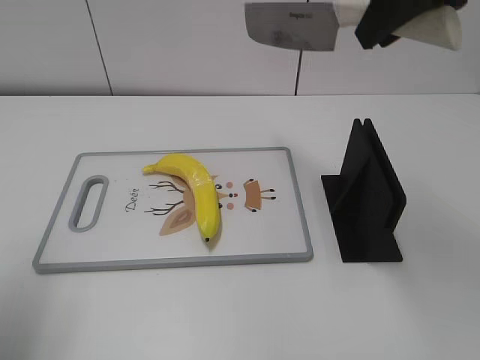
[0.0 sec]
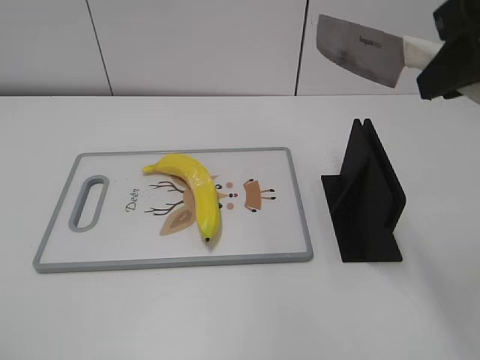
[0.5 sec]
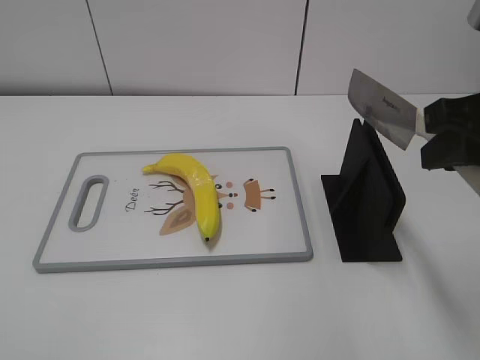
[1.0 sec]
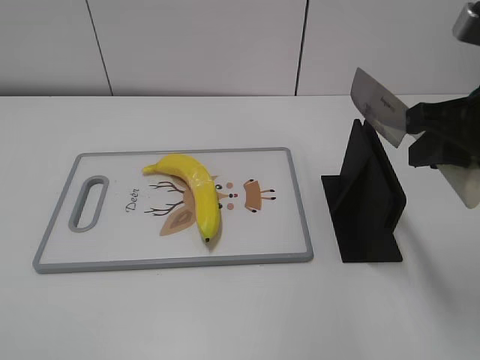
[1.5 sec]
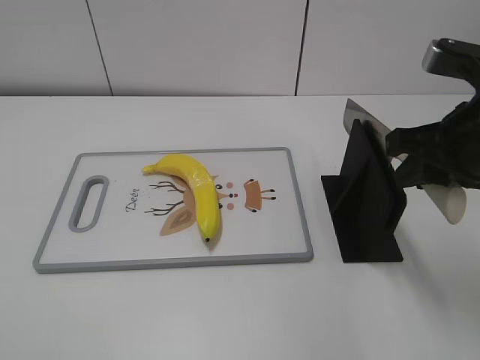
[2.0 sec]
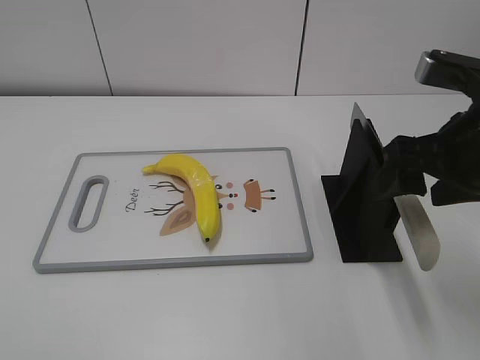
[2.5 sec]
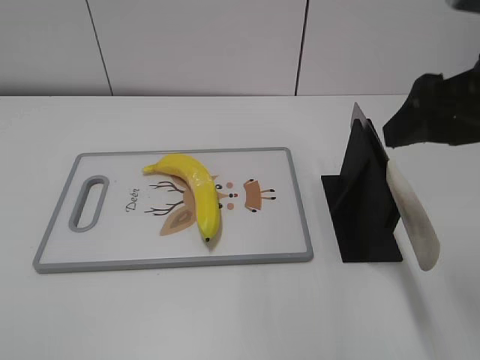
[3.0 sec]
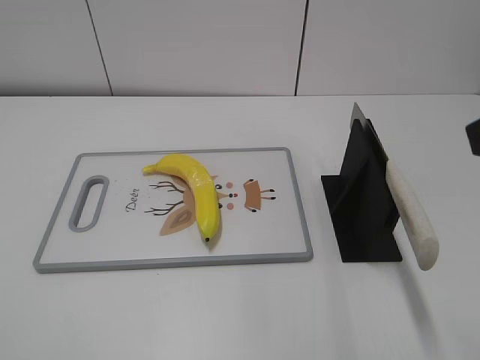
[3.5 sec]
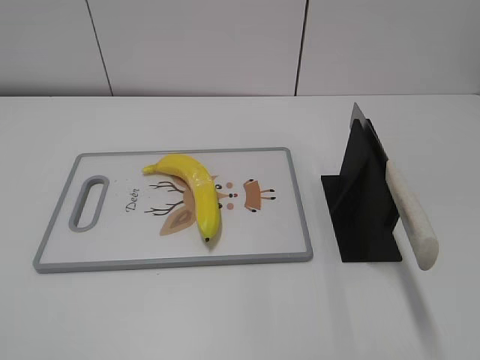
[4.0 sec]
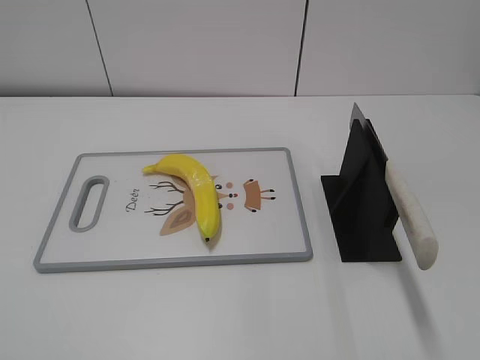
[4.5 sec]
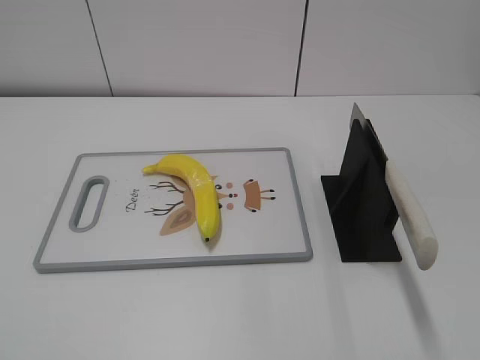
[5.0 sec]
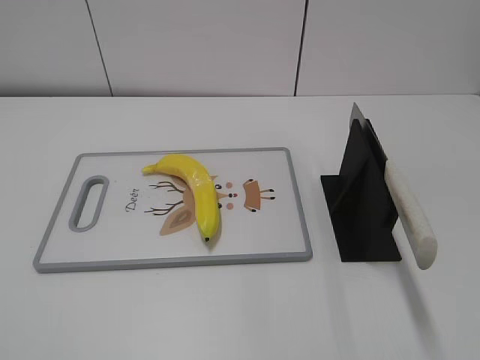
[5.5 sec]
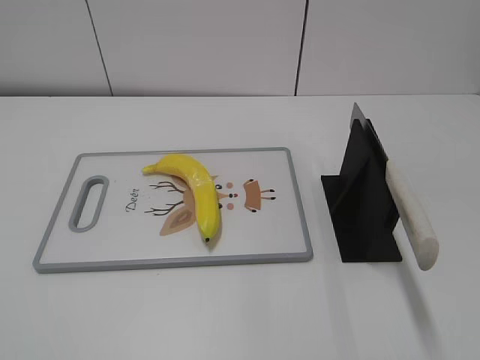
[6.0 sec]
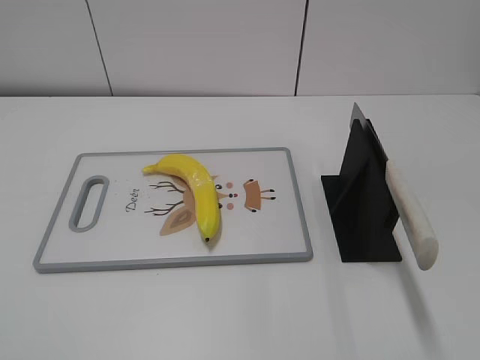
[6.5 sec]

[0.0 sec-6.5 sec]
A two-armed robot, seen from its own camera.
Task of the whole recording: cut plastic banana.
Step, 0.0 sec to 1.0 sec: Lift the knife with your right hand.
Step, 1.5 sec to 6.0 sec: Place the knife on the storage rack with your right hand.
0.0 sec to 2.0 sec: The right gripper shifts about 15 cm downward and backward. The left gripper moves backward, approximately 25 cm.
2.0 sec to 4.5 sec: The right gripper heads backward, covering roughly 20 cm, and opens up.
